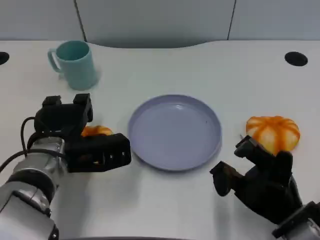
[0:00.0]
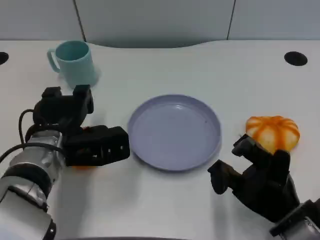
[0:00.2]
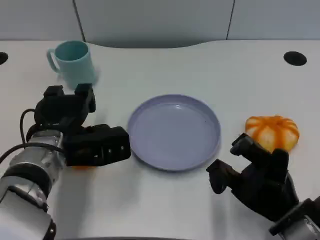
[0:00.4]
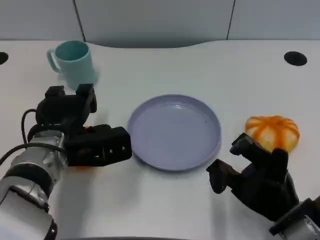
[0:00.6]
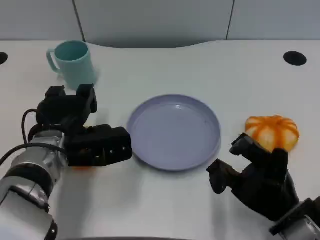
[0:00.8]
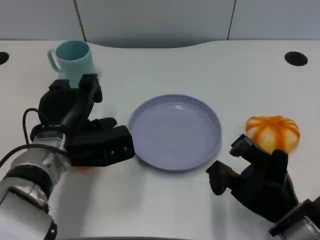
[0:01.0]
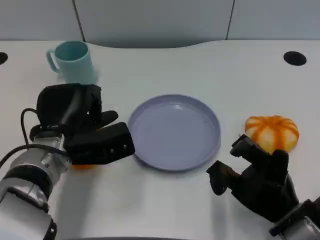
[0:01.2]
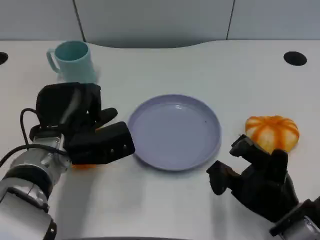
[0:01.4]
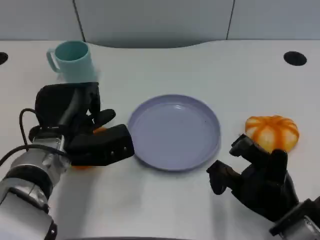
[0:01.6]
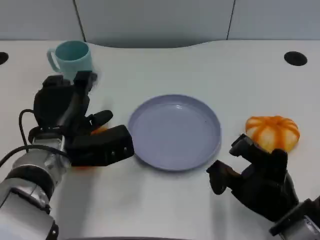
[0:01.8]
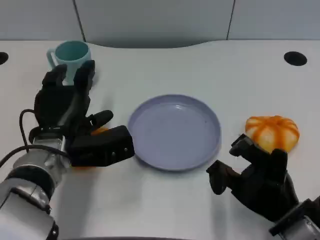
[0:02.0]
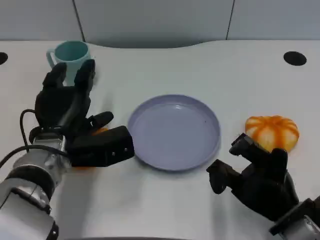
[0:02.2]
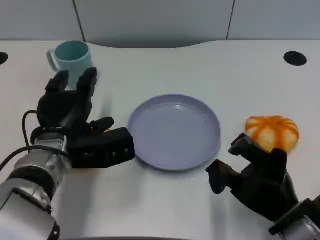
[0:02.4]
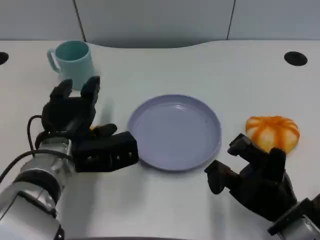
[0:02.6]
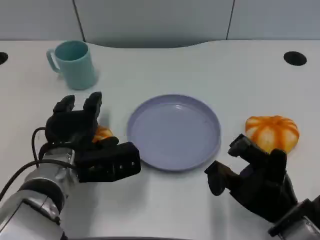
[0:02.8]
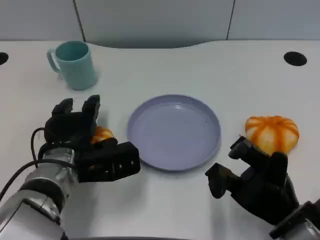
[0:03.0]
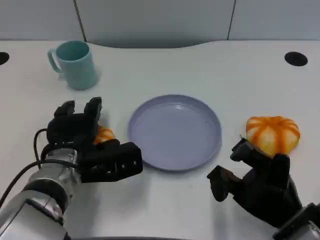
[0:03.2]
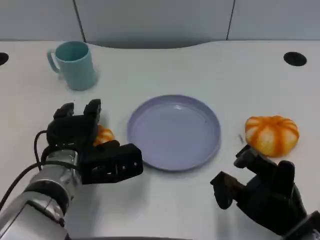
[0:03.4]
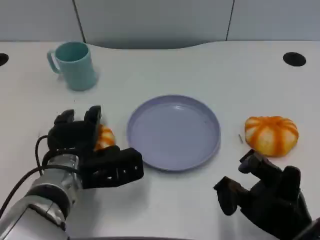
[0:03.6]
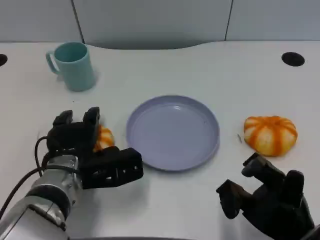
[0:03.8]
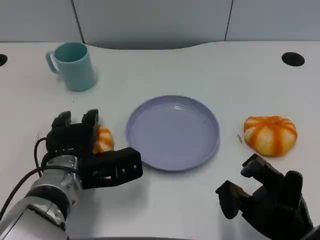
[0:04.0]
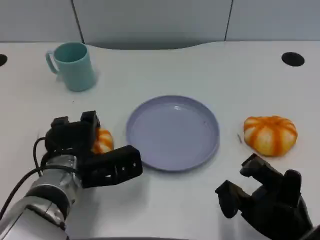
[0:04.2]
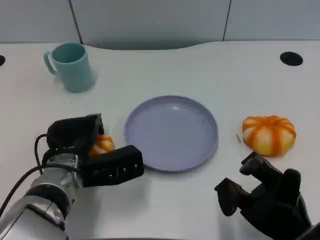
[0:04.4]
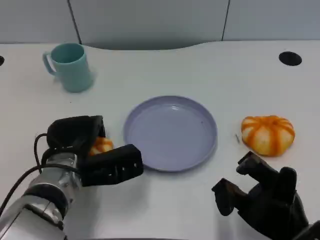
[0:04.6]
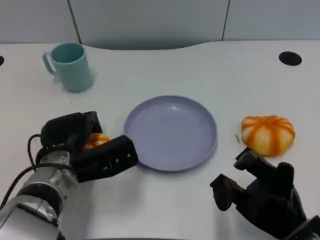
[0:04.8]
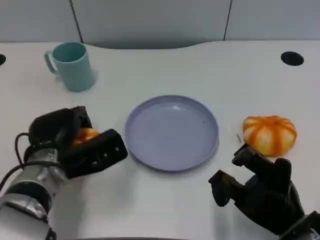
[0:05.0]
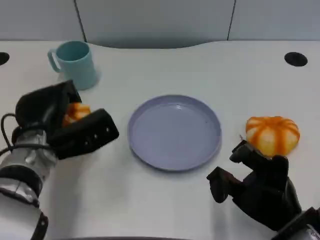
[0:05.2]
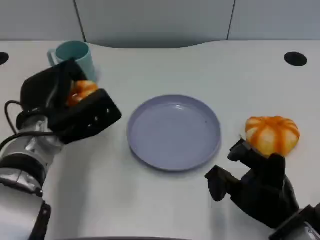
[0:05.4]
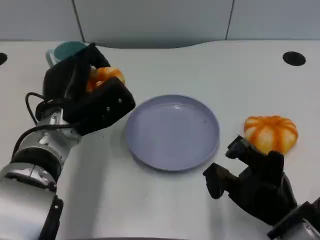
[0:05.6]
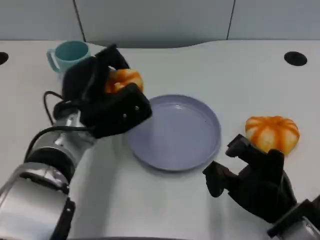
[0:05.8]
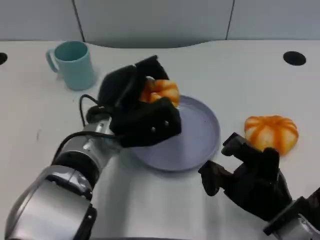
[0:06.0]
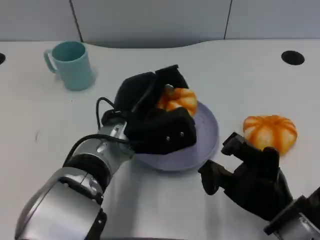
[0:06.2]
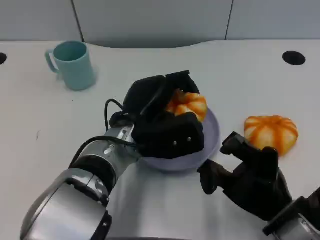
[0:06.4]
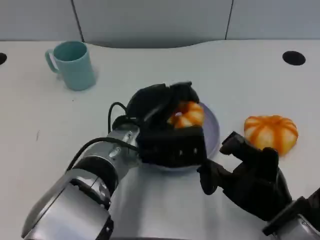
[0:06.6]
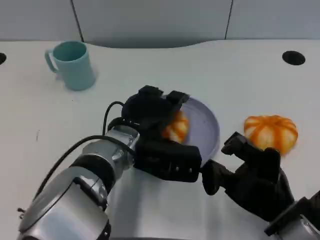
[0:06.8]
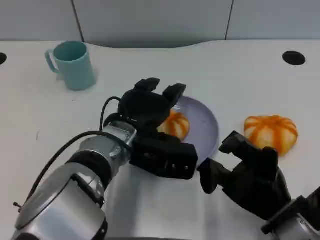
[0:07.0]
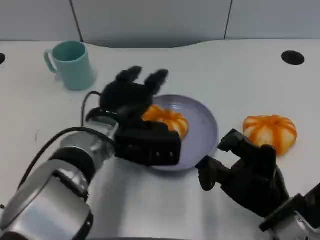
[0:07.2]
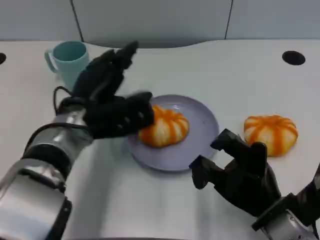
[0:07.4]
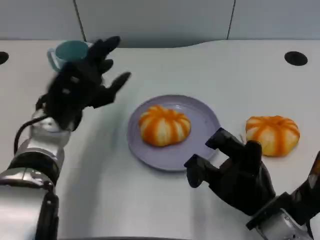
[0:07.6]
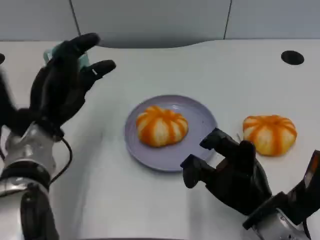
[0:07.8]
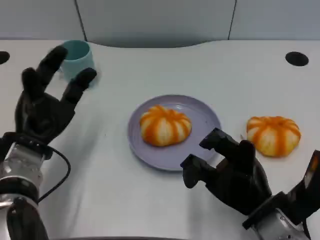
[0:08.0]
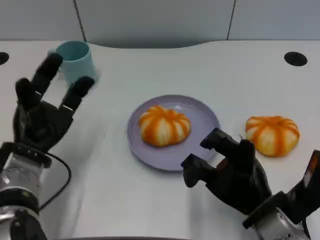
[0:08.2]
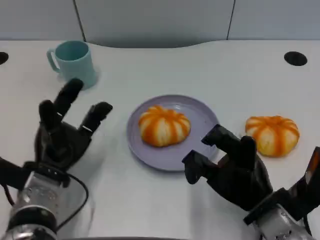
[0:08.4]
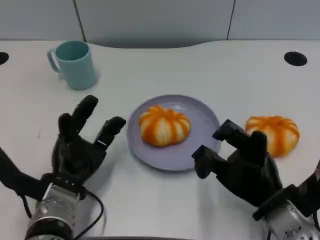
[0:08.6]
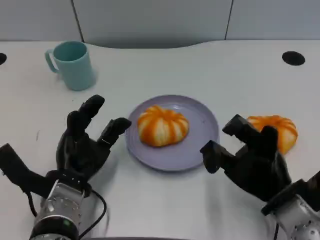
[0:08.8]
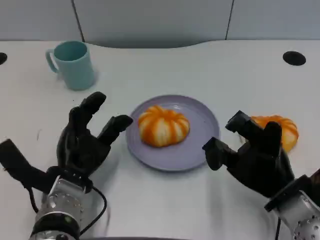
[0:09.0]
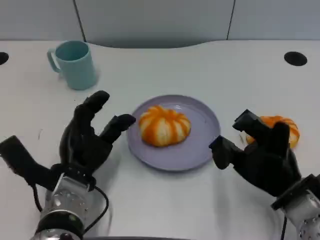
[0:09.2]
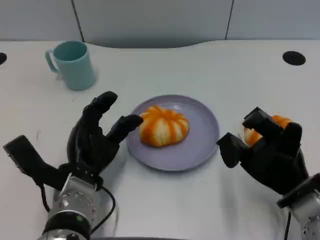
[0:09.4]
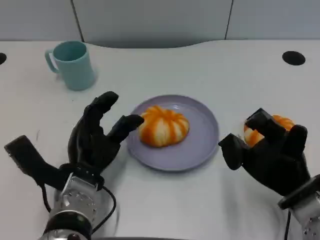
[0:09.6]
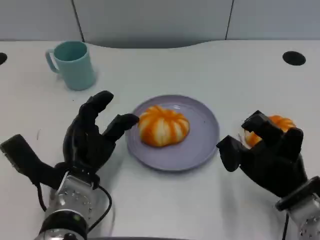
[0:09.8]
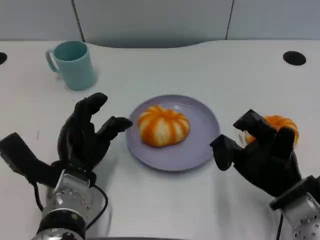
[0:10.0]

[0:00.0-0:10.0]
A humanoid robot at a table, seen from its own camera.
Task of the whole recording: Grasp the bread from the table and place it into the plate.
0:01.4 to 0:02.8: The hands stay close to where they were, moving slightly.
0:02.8 to 0:04.2: The hands make only small movements.
0:04.2 to 0:05.8: The left hand shifts roughly 5 cm upward.
0:07.2 to 0:08.6: The left hand is displaced downward, to the left and backward by roughly 10 cm.

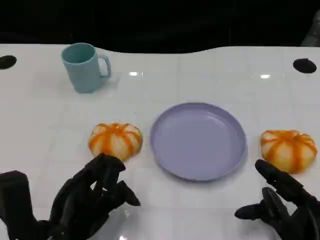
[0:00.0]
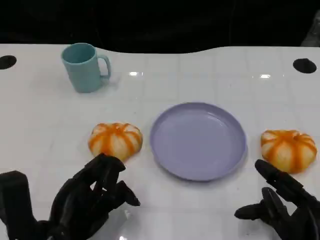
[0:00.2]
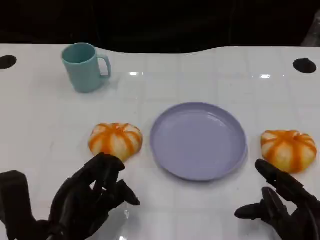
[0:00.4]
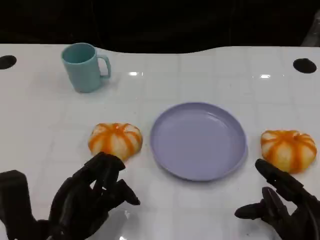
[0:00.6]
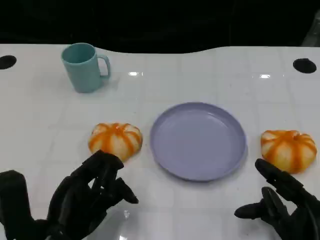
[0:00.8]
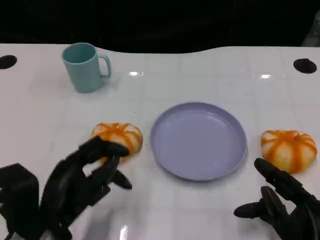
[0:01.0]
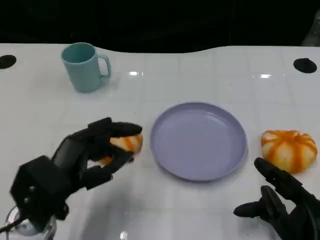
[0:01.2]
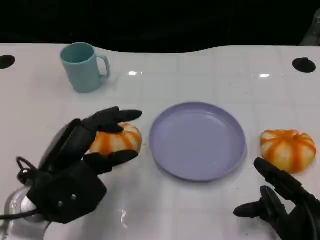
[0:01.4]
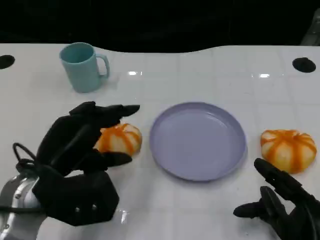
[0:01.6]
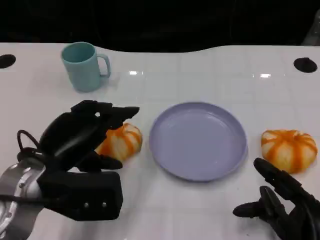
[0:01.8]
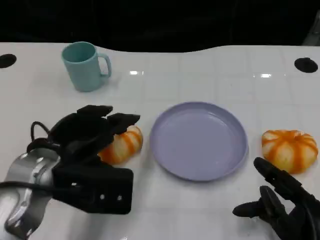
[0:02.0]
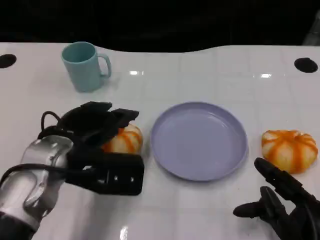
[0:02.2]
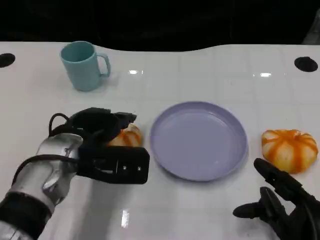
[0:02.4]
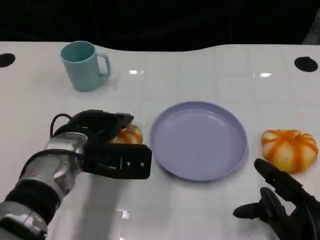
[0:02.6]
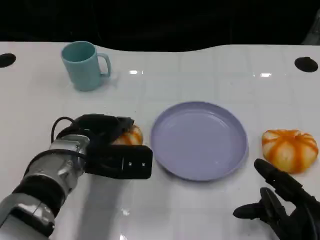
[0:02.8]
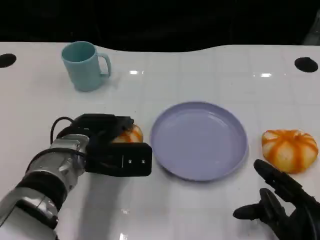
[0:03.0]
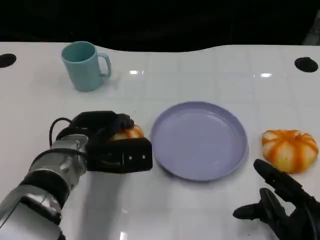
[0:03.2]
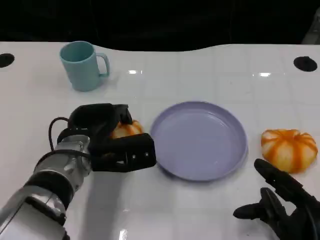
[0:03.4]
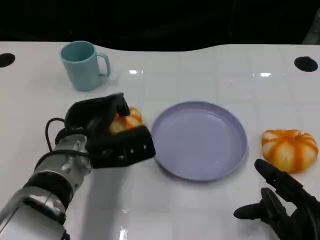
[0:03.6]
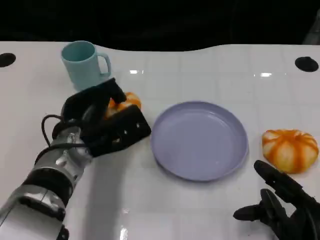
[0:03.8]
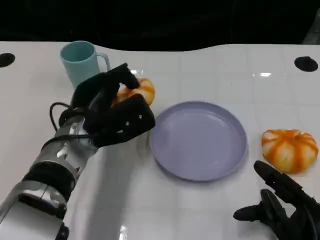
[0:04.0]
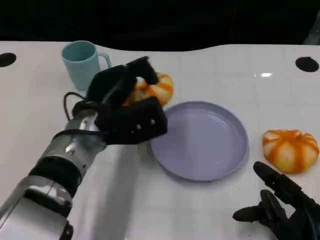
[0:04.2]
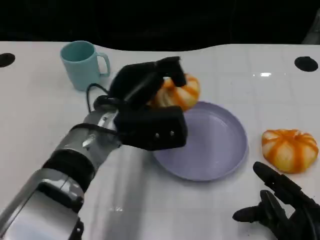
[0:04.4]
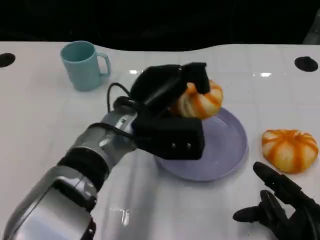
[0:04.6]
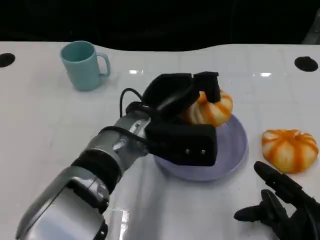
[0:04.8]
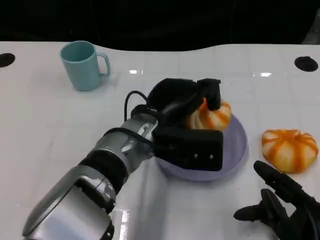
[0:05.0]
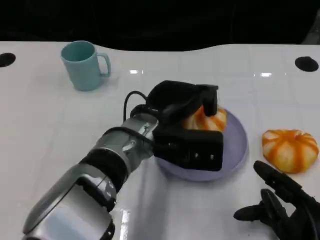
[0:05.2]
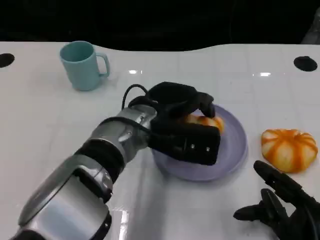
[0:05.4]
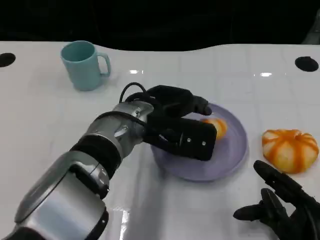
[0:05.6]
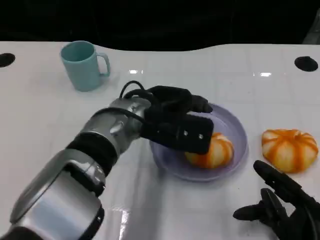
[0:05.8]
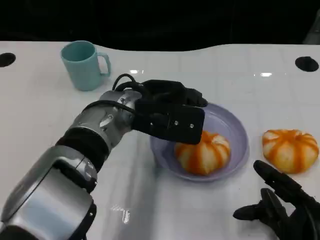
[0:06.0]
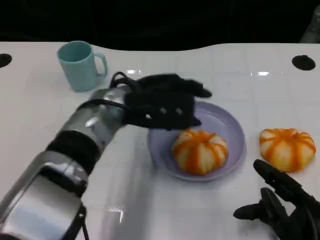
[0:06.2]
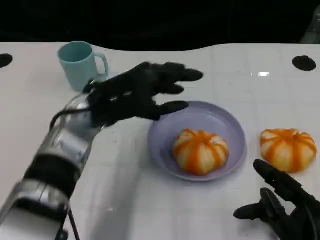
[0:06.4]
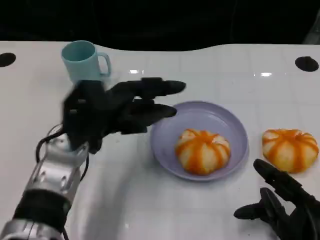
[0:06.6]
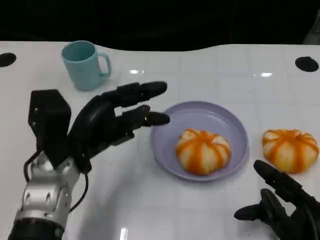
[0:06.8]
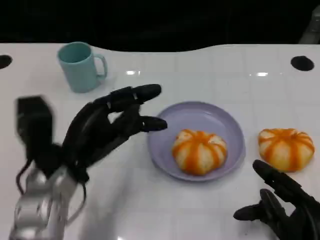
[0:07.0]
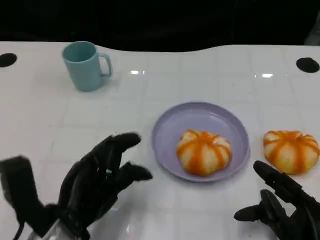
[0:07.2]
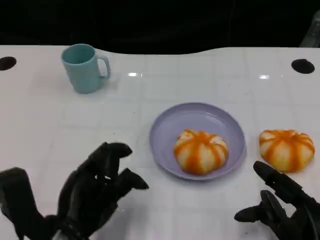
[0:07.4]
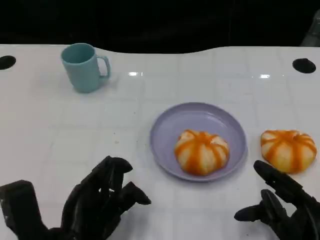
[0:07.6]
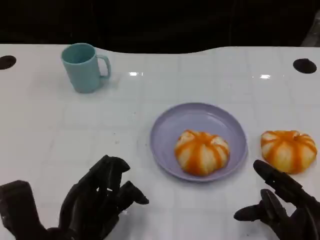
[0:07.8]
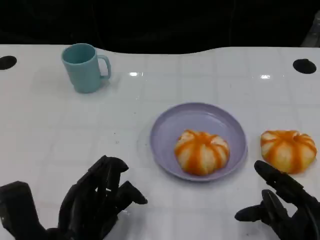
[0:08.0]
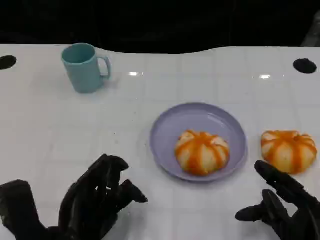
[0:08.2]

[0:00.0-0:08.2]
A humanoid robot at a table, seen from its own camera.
Task of the whole recording: Grasp the bread from the table and place it into the plate.
0:00.0 to 0:01.6: The left hand is displaced forward and upward by about 10 cm.
0:01.6 to 0:03.2: The left hand goes about 10 cm forward.
0:03.2 to 0:05.0: The left hand is displaced to the right by about 10 cm.
0:05.0 to 0:06.6: The left hand is displaced to the left by some 10 cm.
0:06.6 to 0:08.2: The left hand goes roughly 15 cm backward.

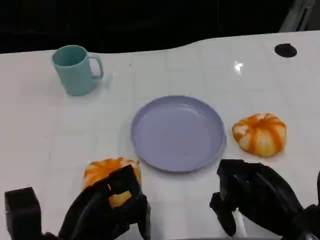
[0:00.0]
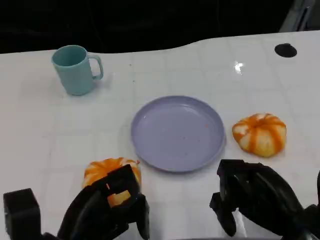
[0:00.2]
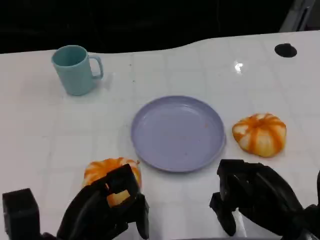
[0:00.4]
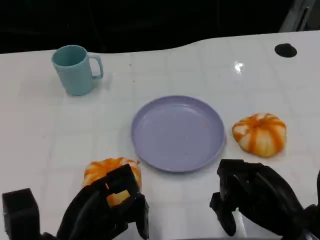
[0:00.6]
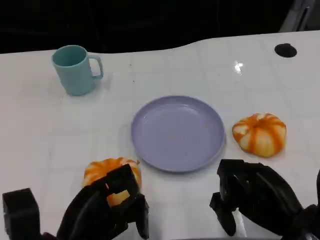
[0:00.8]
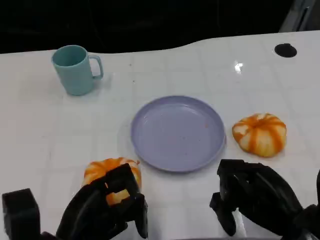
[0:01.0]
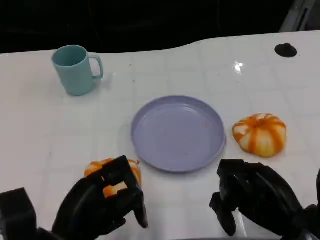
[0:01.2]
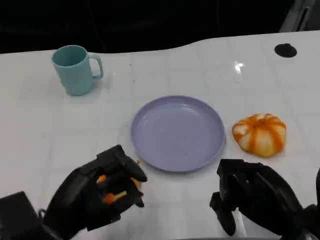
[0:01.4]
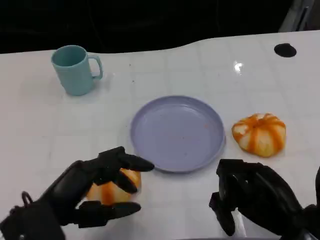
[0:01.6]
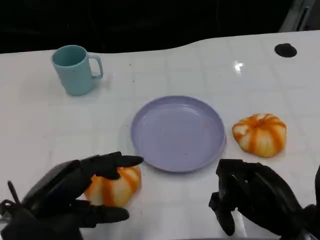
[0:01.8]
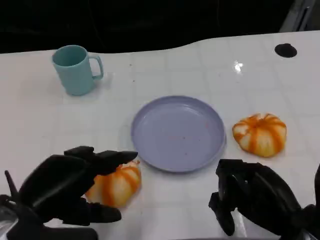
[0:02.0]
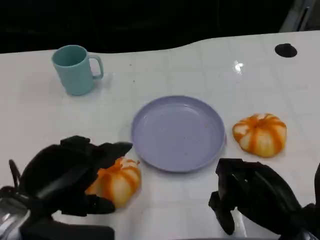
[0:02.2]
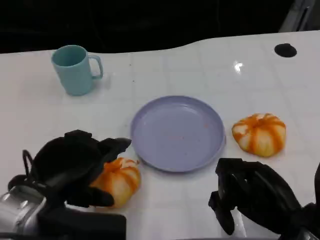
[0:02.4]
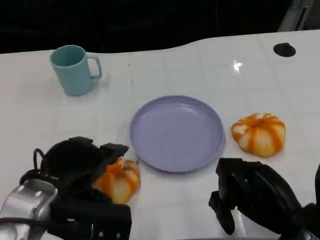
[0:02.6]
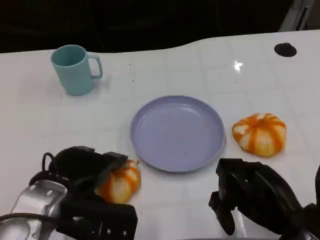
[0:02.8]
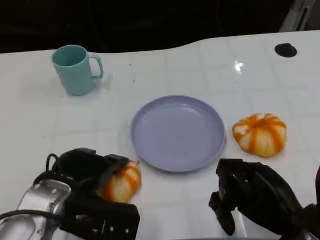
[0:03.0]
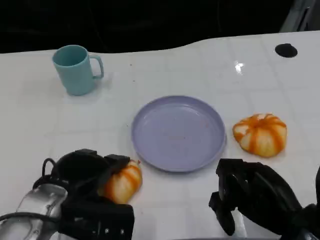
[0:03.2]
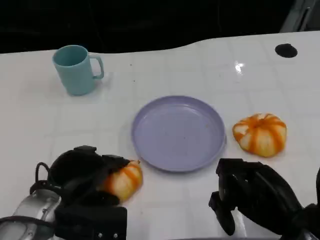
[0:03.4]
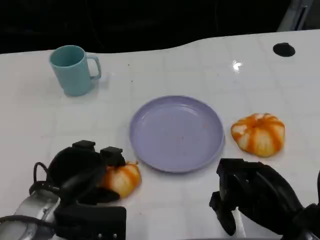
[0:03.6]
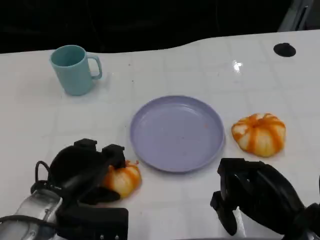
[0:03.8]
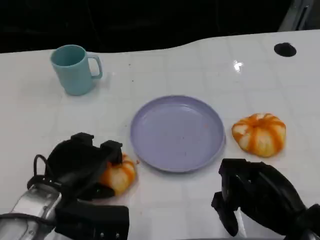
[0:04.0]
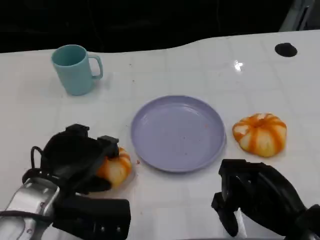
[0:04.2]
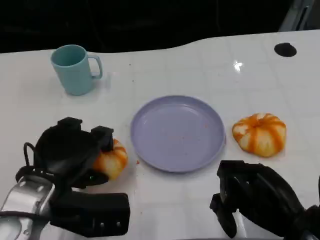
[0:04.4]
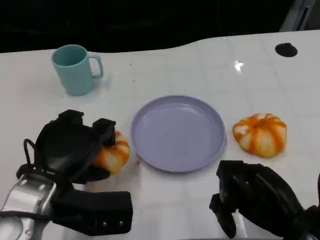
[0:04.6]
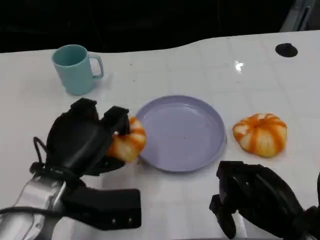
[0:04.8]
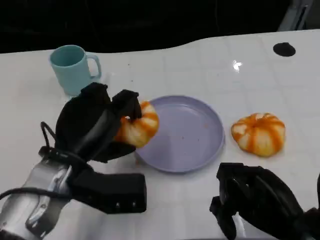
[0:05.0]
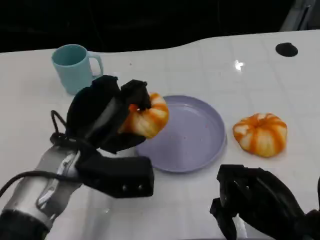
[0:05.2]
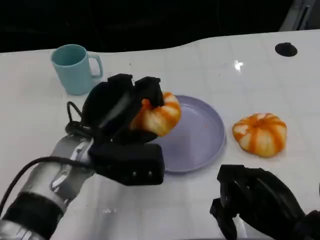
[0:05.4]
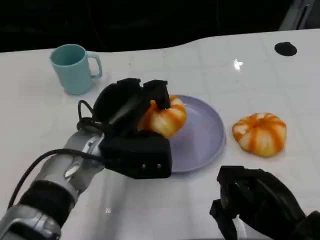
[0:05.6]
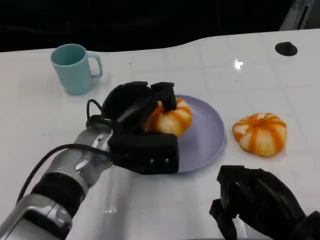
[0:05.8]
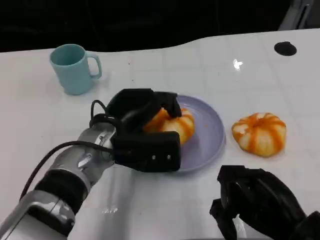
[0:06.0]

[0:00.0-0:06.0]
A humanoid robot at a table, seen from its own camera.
Task of the whole recording: Grasp the bread from the table and place it into the plate.
0:00.0 to 0:01.6: The left hand changes place by approximately 5 cm.
0:01.6 to 0:03.0: The left hand heads forward, covering about 5 cm.
0:04.4 to 0:06.0: The left hand moves to the right and forward, about 10 cm.
